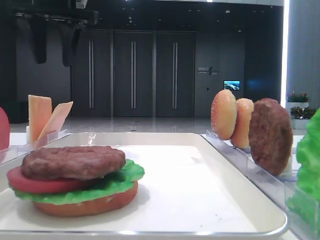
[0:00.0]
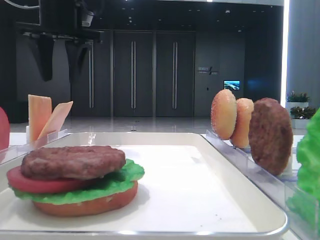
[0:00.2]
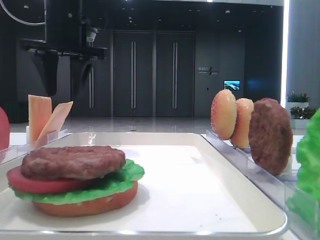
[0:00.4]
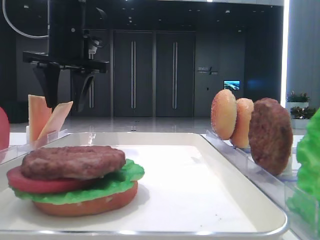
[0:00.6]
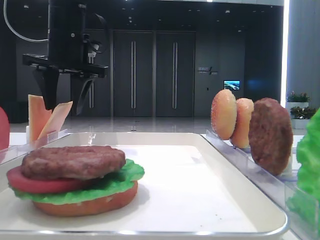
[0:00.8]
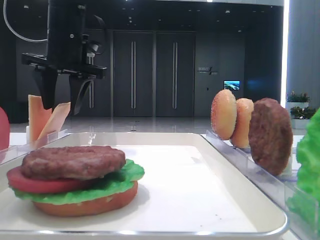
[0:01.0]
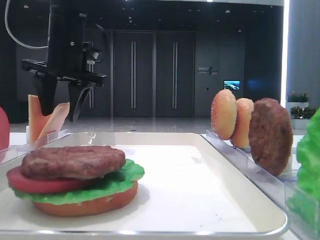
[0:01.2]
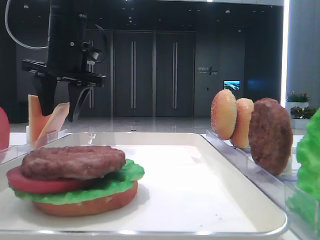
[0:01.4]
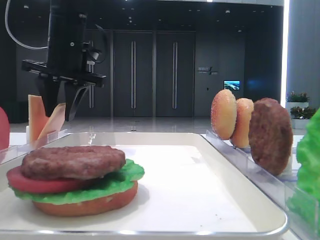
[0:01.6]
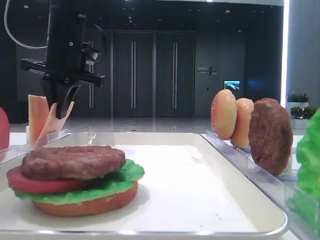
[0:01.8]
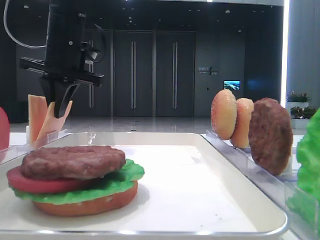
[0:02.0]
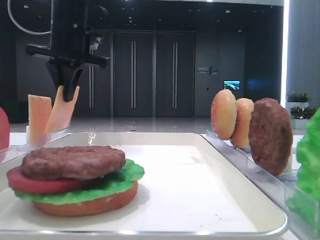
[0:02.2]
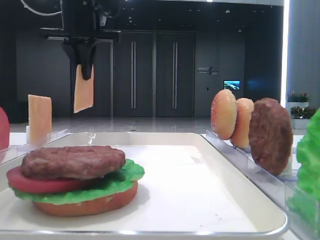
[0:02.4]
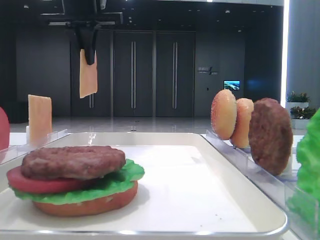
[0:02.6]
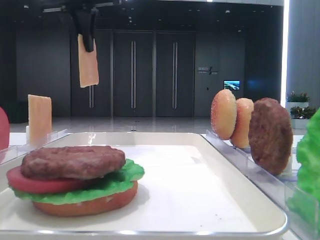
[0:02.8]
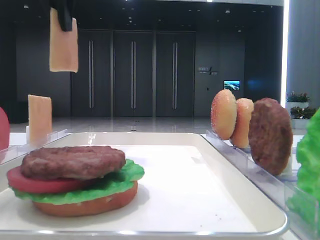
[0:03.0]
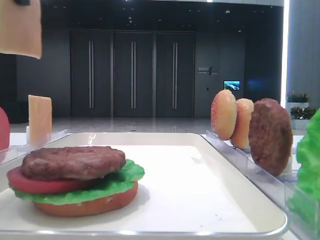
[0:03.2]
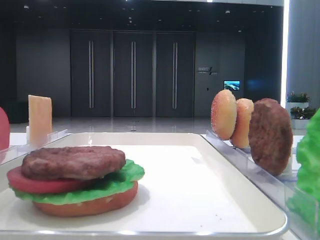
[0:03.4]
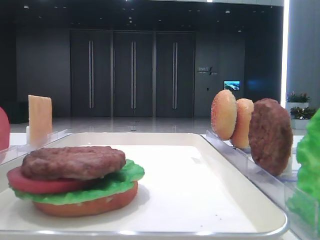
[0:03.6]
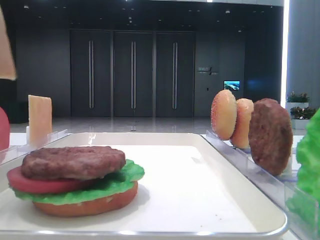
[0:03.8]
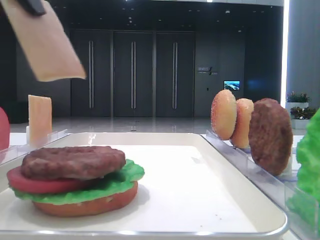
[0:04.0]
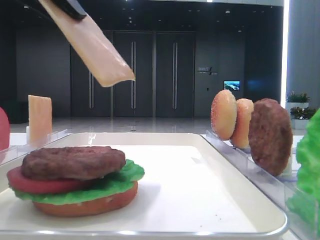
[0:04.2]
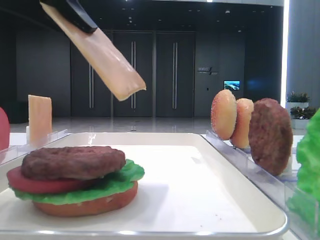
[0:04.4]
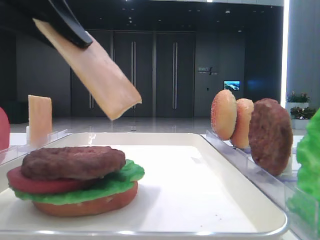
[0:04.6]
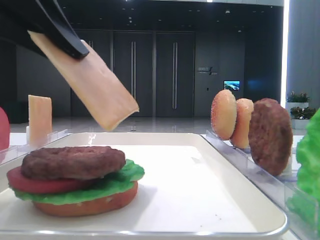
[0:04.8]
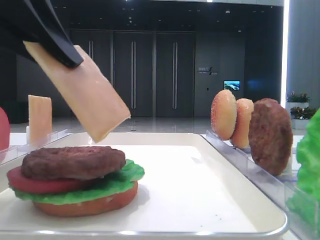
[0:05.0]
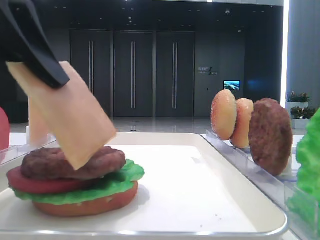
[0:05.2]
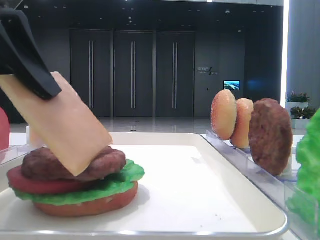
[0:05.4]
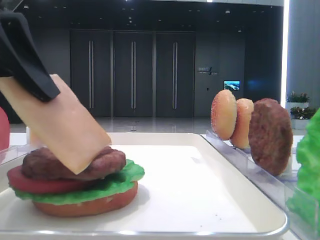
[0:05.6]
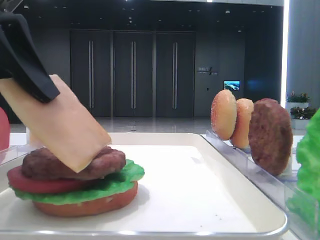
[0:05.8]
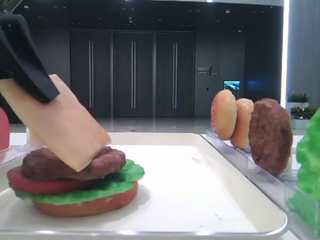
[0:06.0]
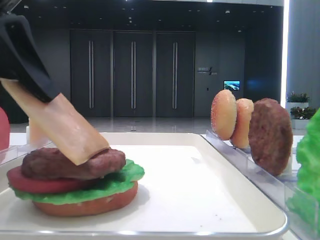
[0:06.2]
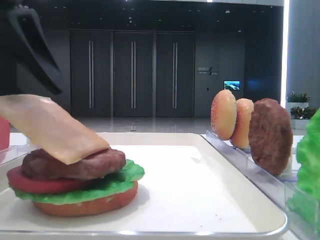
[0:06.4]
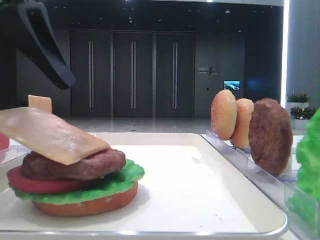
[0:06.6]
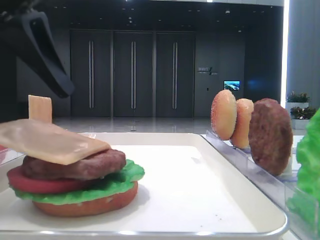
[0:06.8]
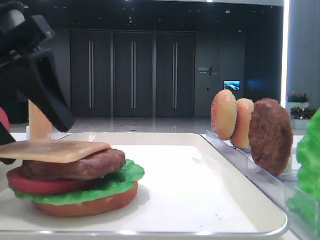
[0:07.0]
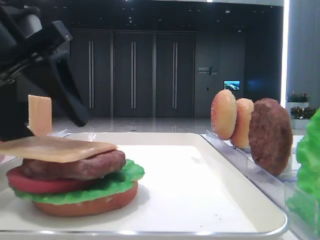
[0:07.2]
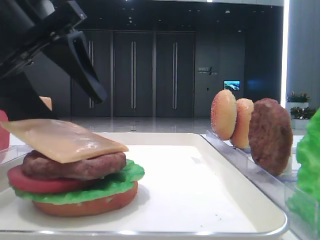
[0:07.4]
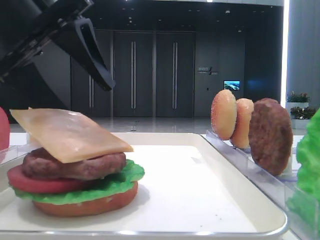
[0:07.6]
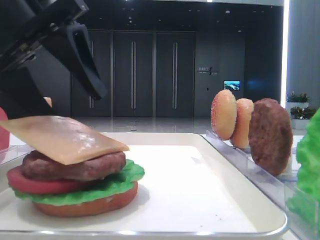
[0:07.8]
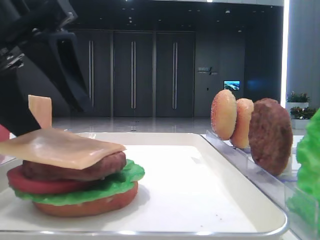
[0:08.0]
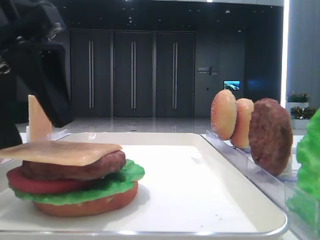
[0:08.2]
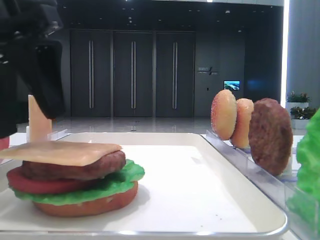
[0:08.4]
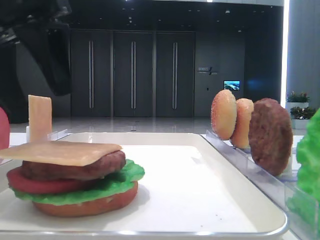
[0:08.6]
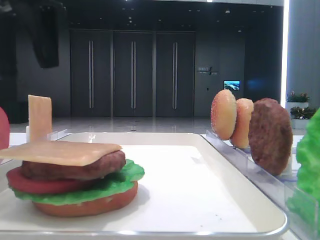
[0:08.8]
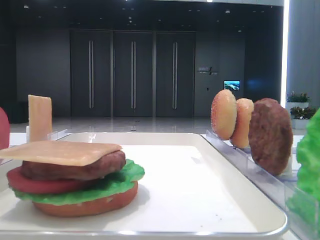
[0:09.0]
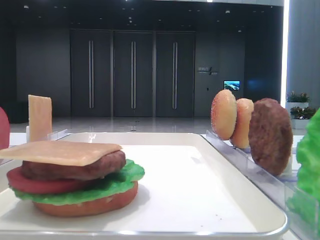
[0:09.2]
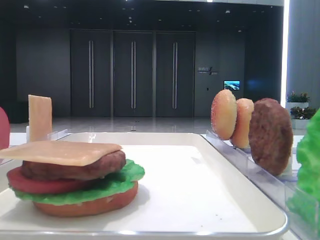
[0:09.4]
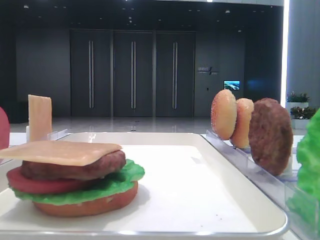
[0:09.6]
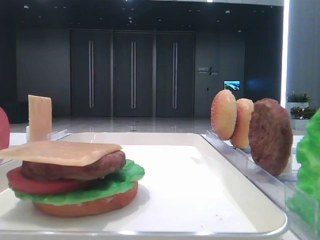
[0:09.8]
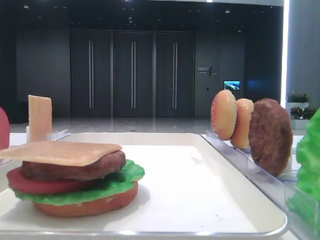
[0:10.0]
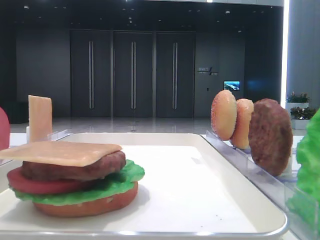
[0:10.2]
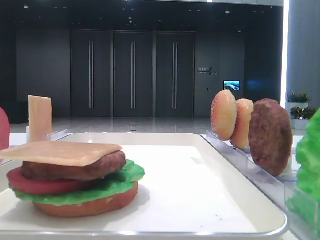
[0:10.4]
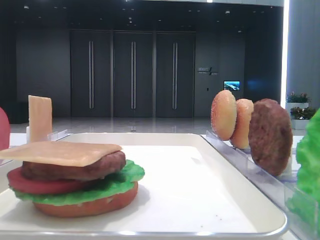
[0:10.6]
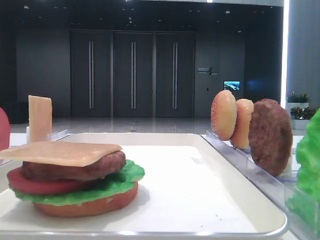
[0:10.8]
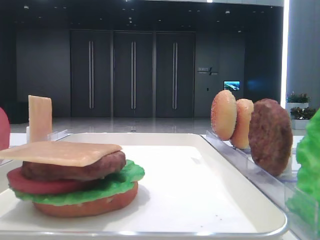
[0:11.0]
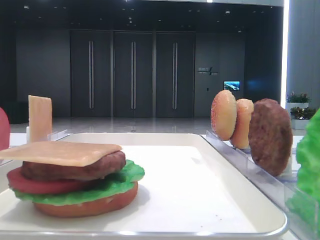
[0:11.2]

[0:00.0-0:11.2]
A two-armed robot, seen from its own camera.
Step, 0:02.0 to 0:08.0: Place the cheese slice on the patty with the left hand.
0:00.0 to 0:01.6: The left gripper is displaced downward by approximately 10 cm.
0:01.6 to 0:03.2: The left gripper shifts approximately 20 cm upward and backward, and closes up.
0:03.2 to 0:04.8: The left gripper shifts roughly 15 cm downward and backward.
0:04.8 to 0:06.4: The left gripper opens up.
0:06.4 to 0:08.0: The left gripper opens up.
0:08.0 to 0:09.6: The left gripper heads to the left and upward, covering approximately 20 cm.

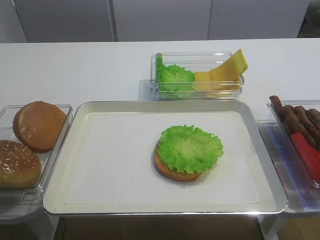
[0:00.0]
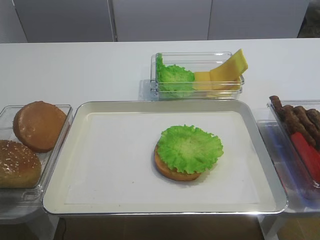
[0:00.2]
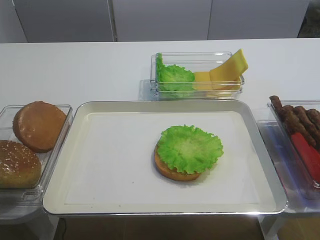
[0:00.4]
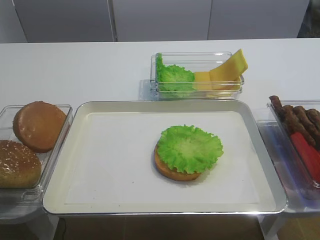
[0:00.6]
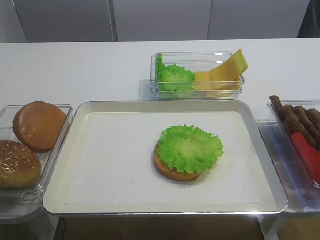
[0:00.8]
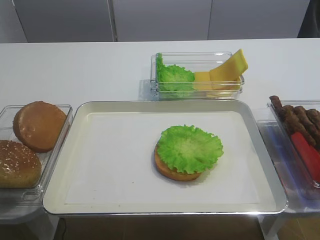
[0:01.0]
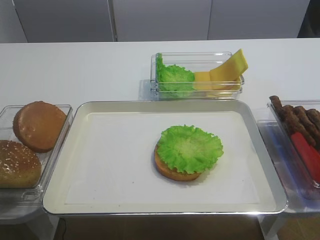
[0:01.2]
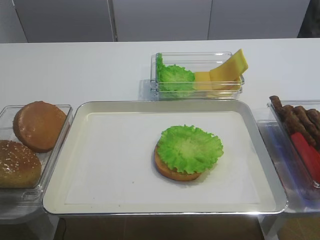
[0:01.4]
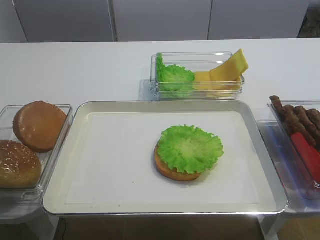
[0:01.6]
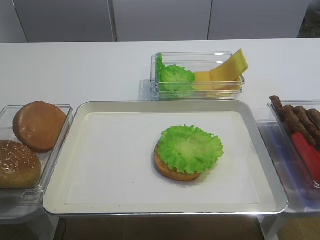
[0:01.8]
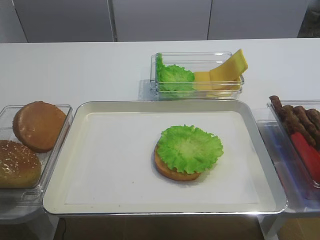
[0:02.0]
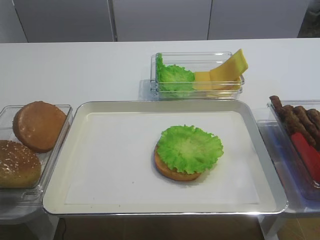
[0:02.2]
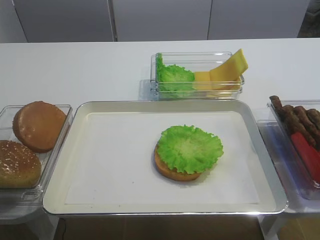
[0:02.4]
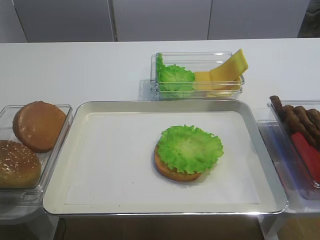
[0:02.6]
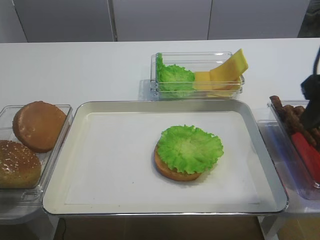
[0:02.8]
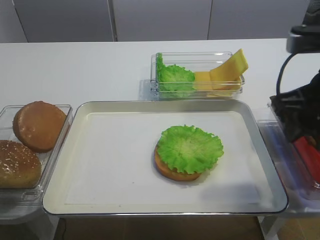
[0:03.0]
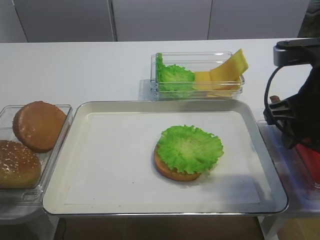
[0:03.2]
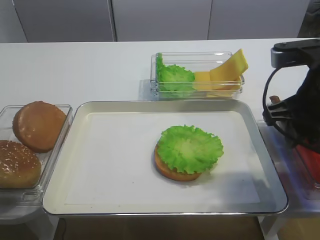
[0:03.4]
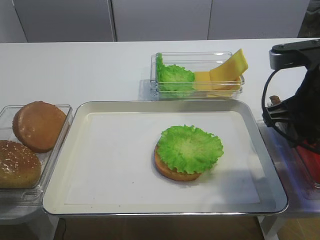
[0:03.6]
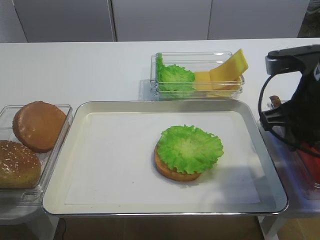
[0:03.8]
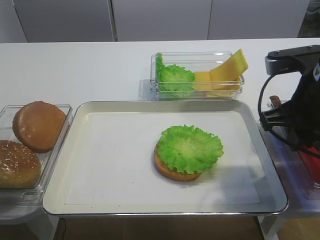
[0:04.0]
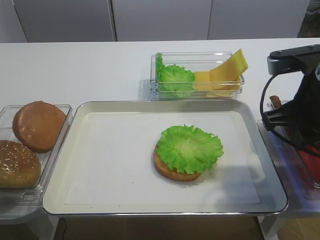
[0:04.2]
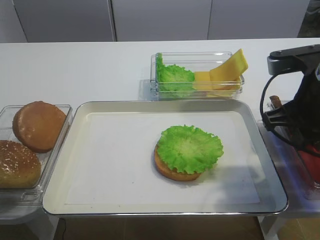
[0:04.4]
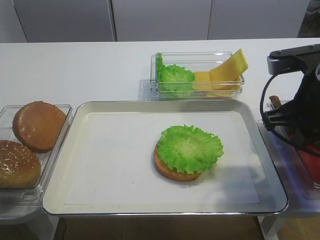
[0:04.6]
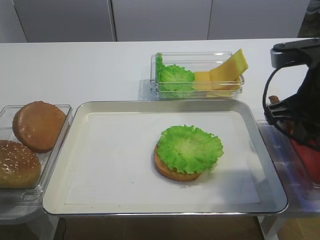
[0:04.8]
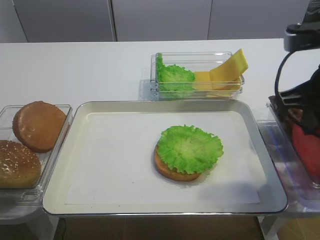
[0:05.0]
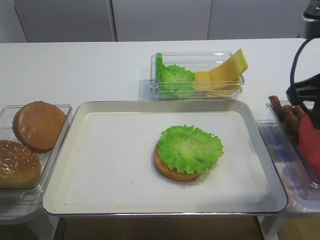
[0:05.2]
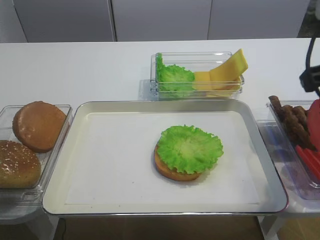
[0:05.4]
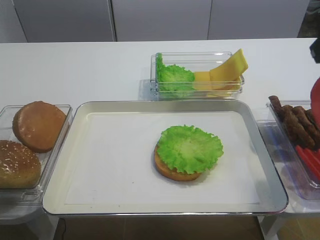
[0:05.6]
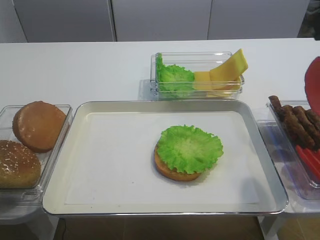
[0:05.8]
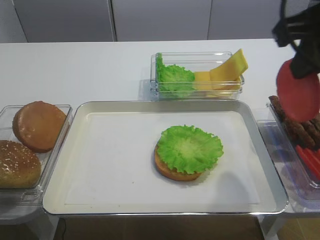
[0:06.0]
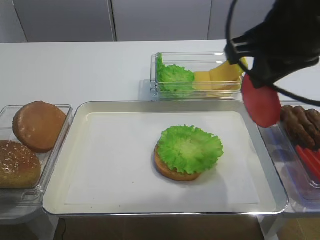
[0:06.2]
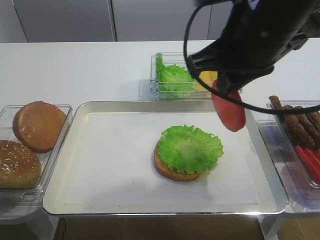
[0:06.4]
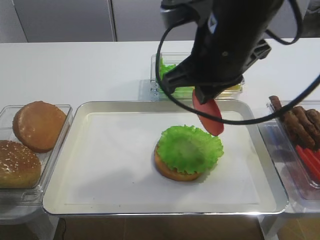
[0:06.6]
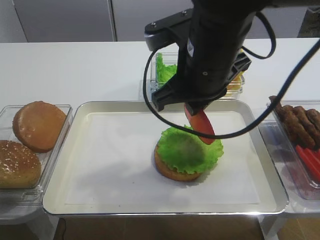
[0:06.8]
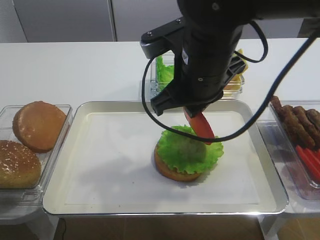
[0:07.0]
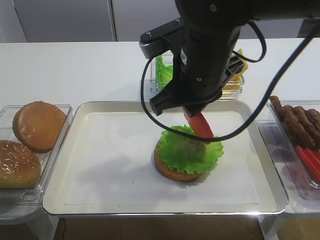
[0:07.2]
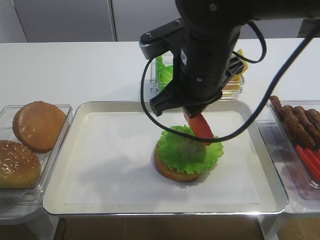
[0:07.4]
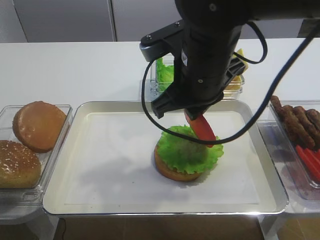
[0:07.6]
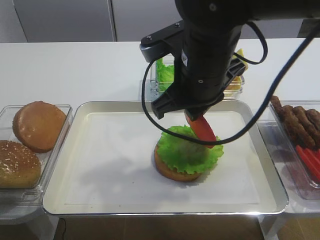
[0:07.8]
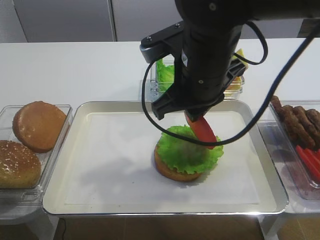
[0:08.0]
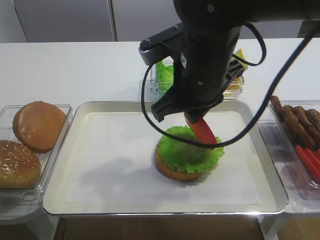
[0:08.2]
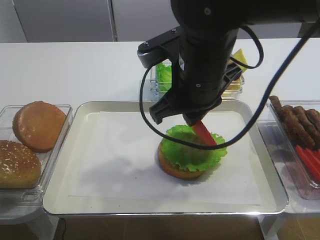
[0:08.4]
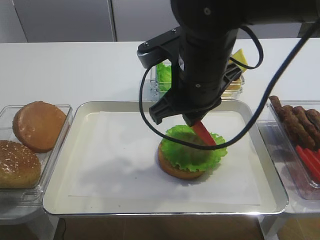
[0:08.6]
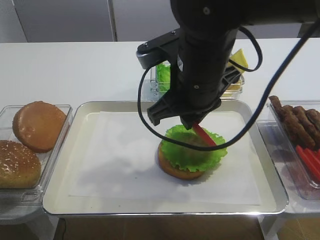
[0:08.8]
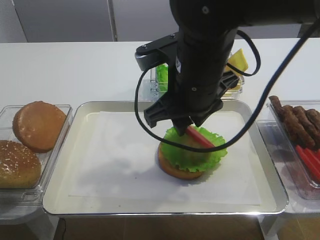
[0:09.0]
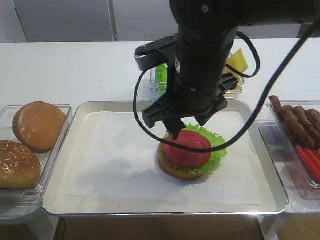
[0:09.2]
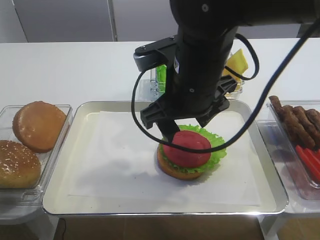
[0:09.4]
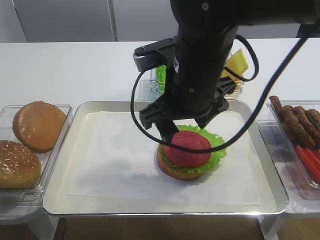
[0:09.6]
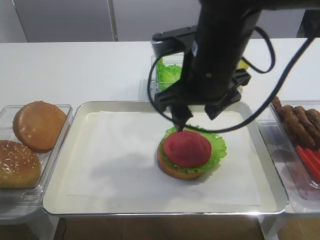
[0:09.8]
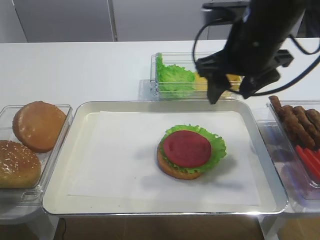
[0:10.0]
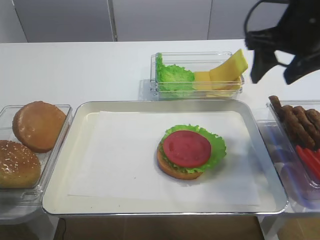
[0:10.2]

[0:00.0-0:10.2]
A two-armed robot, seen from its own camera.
Step, 0:00.0 to 0:05.0: Pick up the tomato slice with the right gripper.
Step, 0:05.4 to 0:09.4: Place the tomato slice on the lettuce leaf with the right gripper.
0:01.4 to 0:03.0: The right gripper goes roughly 20 cm forward.
0:03.0 to 0:04.4: The right gripper closes up.
0:04.4 to 0:05.8: The right gripper moves upward, some 10 cm.
0:05.8 to 0:07.2: The right gripper shifts approximately 20 cm to the left, downward and forward.
0:07.2 to 0:08.8: The two grippers keep their place.
0:08.8 to 0:10.2: The right gripper travels to the right by about 15 cm, and opens its fingers.

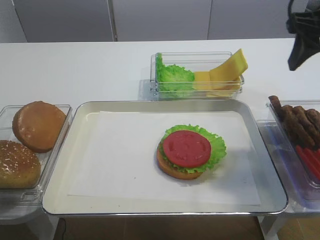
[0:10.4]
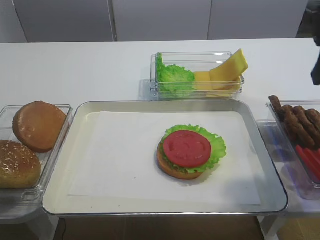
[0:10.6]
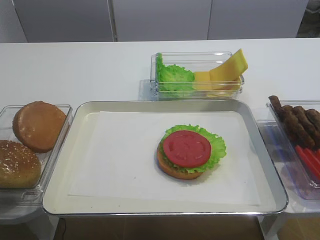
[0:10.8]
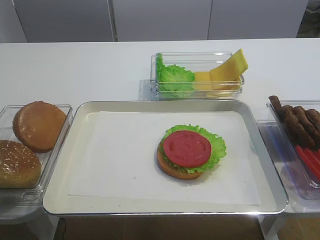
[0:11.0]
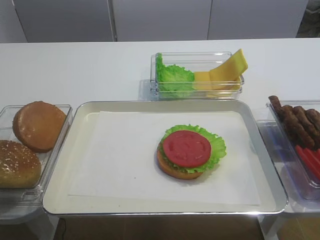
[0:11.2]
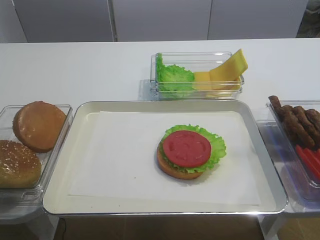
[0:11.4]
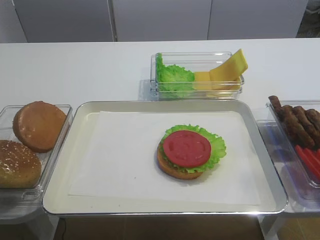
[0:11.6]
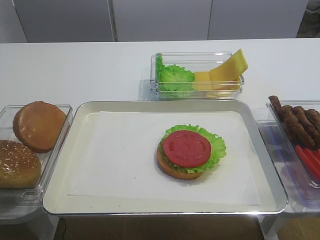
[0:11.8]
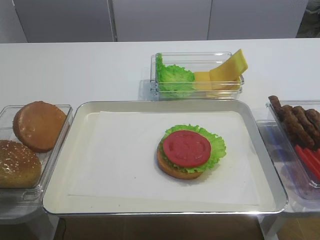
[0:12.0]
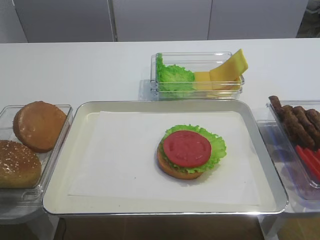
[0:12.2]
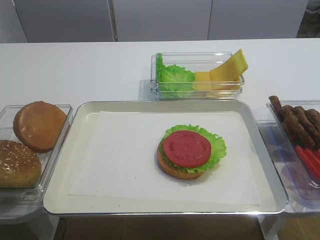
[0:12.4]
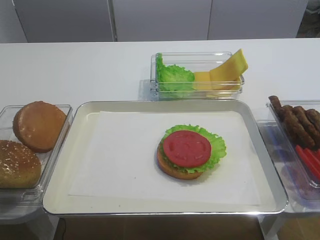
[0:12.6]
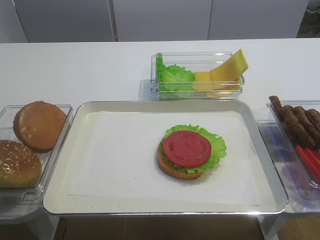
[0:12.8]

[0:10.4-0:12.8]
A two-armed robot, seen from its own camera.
0:10.4 to 0:11.6: The right gripper heads backward, covering some 30 cm.
